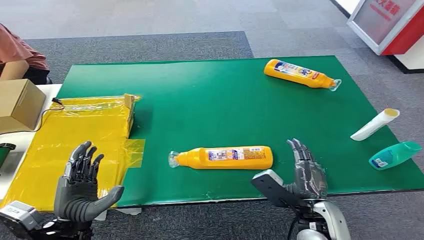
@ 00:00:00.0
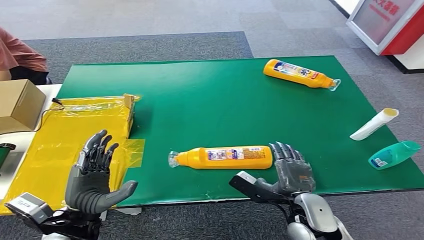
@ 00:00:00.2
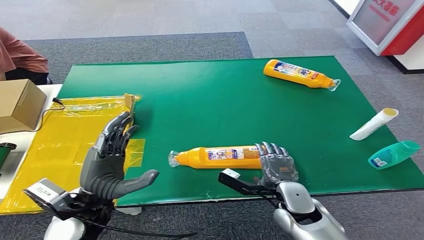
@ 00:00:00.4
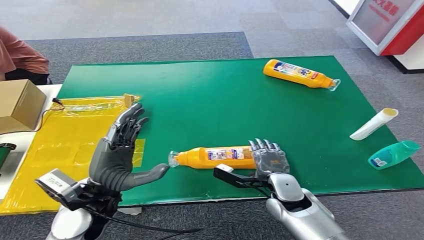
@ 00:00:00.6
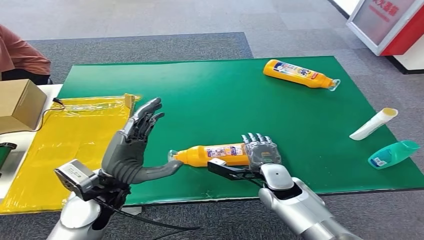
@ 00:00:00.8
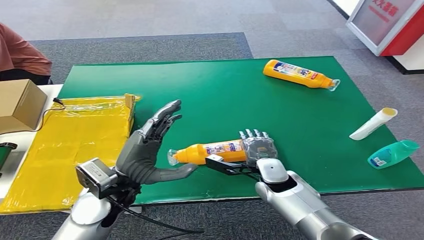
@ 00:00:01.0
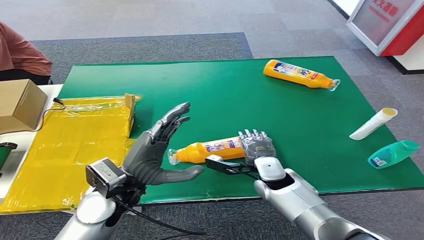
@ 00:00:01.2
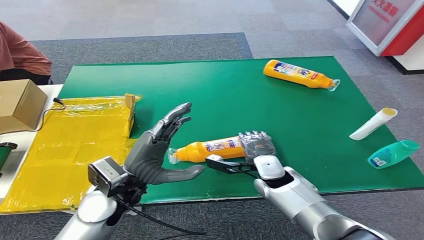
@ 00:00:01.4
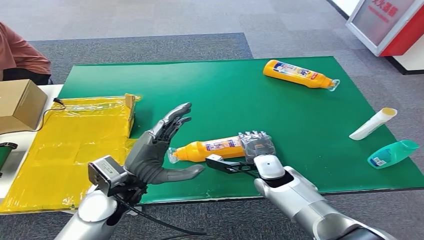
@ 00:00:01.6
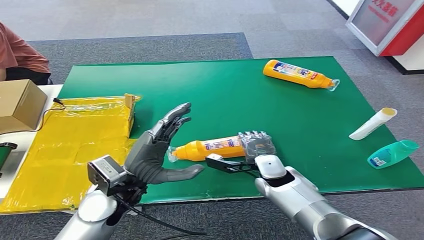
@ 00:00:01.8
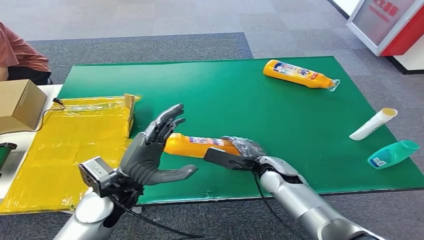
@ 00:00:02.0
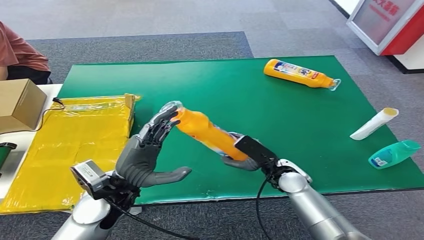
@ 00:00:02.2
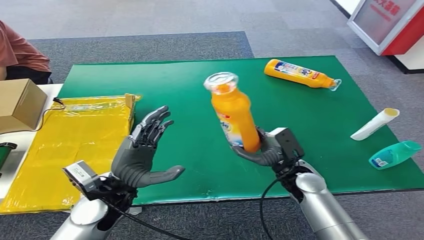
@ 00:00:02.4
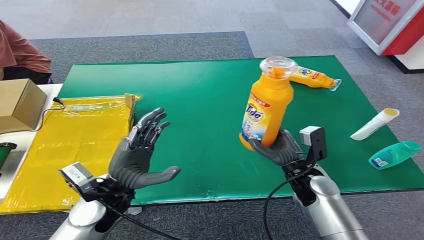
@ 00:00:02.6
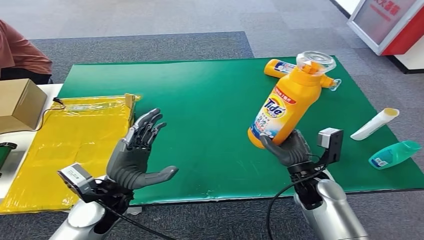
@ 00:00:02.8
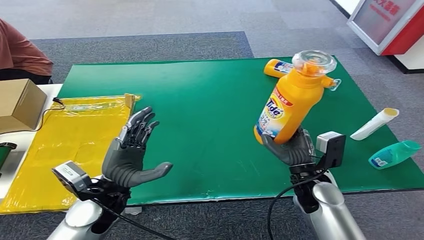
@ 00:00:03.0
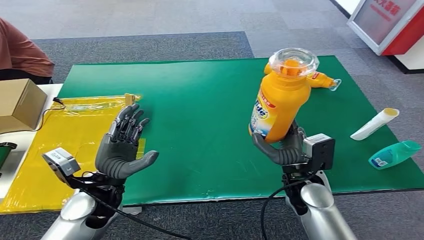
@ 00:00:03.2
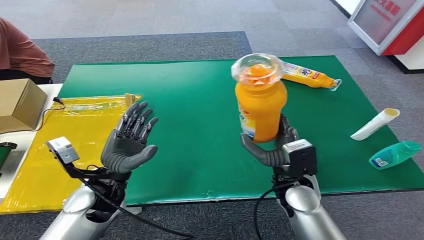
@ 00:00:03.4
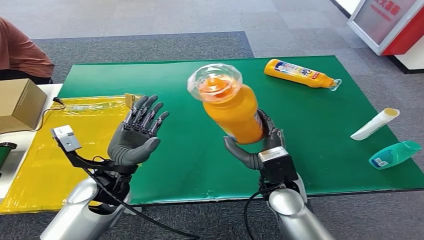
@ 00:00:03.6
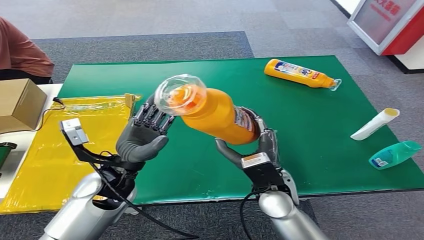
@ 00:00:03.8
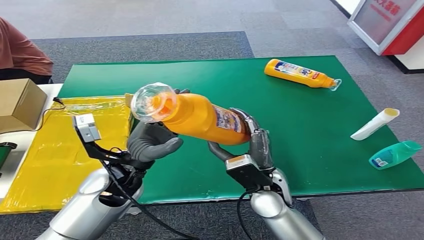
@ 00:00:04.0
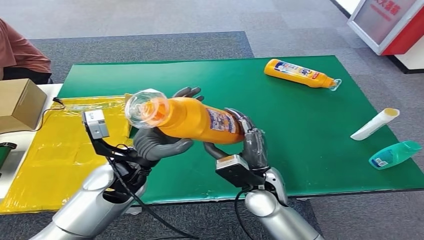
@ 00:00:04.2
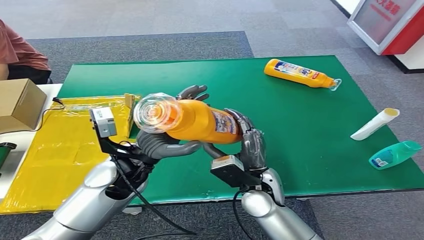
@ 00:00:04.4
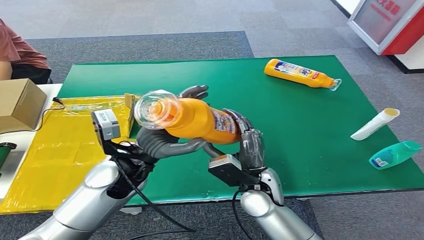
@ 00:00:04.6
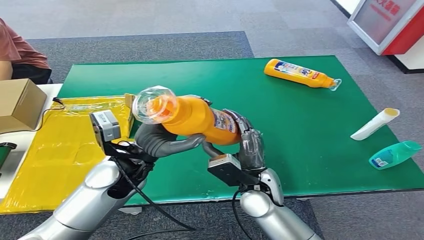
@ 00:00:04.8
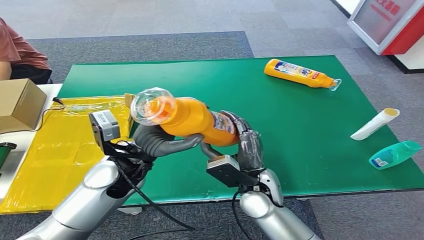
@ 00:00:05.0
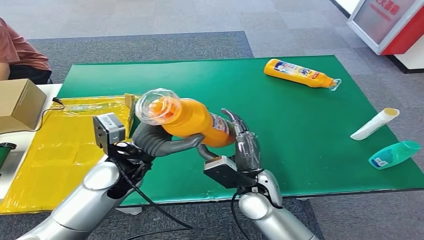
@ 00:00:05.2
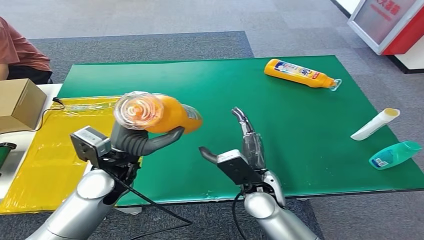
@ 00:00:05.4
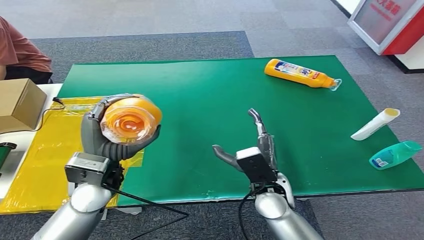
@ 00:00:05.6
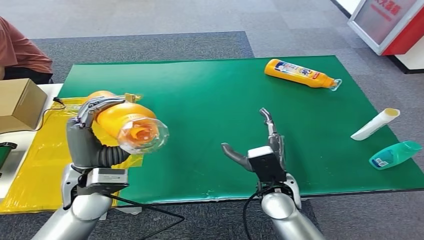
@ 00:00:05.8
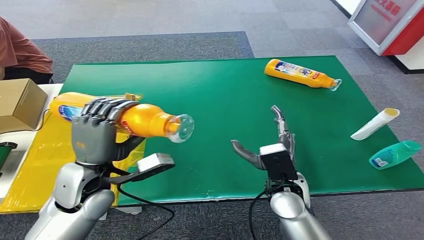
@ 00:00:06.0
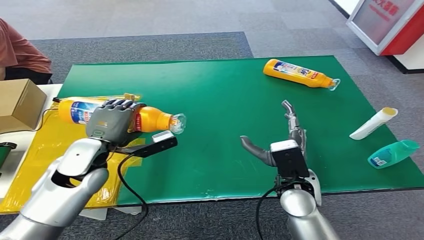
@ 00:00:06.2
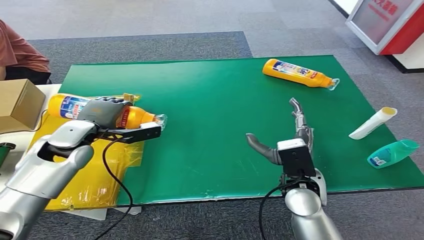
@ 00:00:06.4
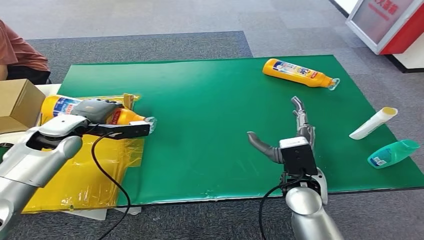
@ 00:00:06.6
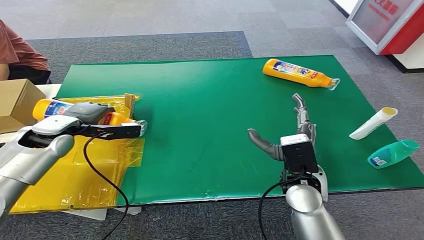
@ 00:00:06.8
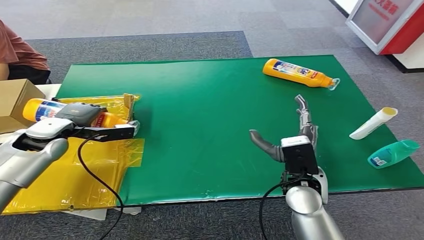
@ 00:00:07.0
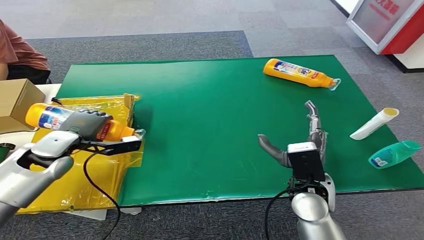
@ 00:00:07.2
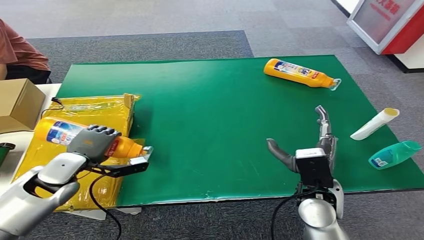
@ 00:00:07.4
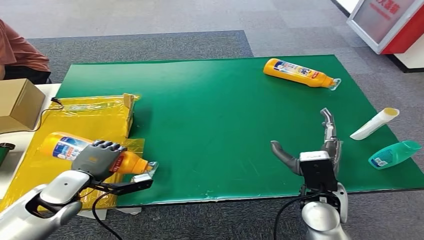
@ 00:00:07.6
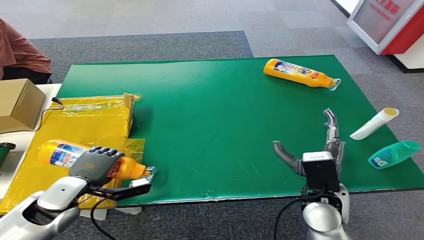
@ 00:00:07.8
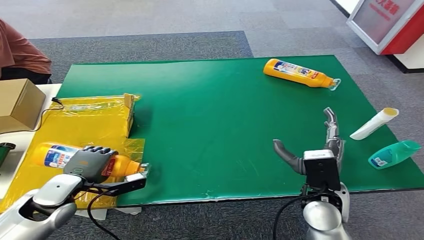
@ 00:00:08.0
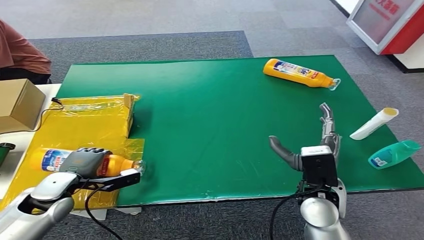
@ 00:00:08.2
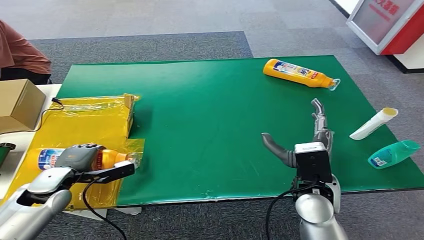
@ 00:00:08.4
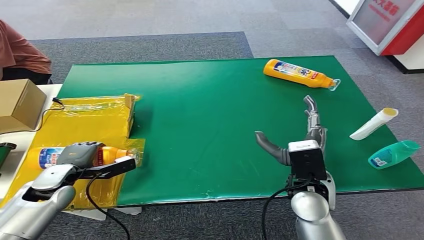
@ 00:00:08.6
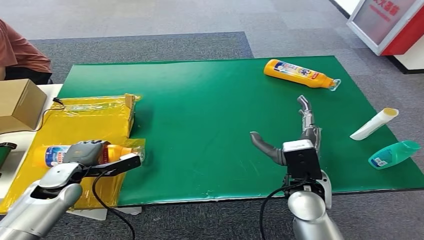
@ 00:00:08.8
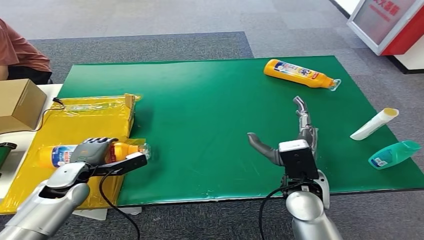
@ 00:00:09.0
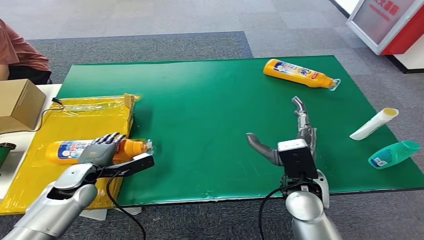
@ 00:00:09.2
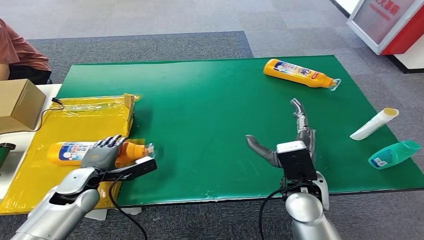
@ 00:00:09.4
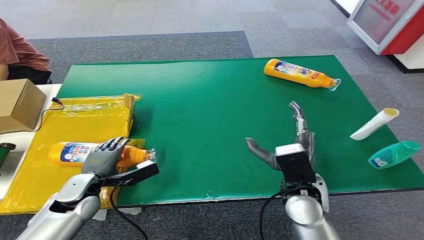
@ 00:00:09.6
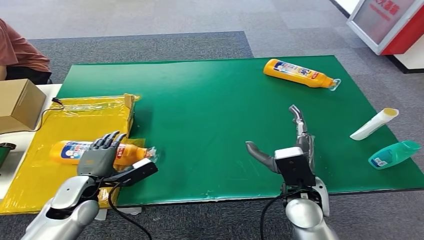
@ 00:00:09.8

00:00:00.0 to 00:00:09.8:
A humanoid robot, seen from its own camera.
Step, 00:00:00.0 to 00:00:02.6: Pick up the bottle from the table.
Step, 00:00:02.8 to 00:00:09.8: Turn the bottle to the front side.
00:00:07.0 to 00:00:08.4: The left hand is displaced backward and downward by approximately 15 cm.
00:00:08.4 to 00:00:09.8: The left hand heads to the right, covering roughly 5 cm.
